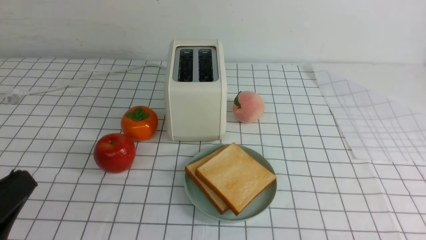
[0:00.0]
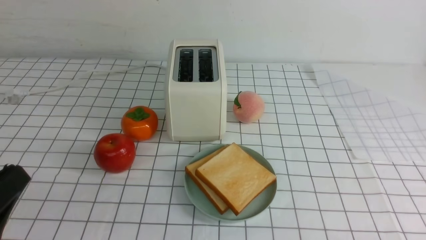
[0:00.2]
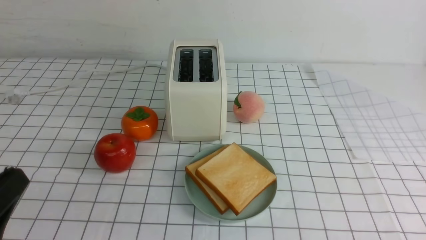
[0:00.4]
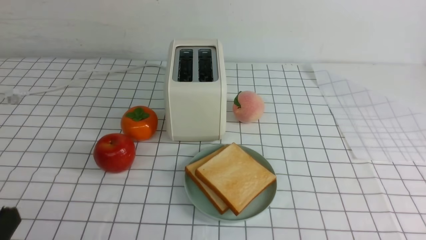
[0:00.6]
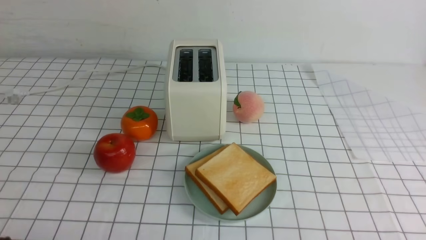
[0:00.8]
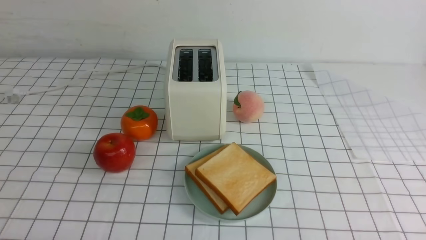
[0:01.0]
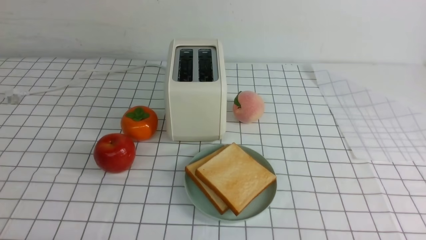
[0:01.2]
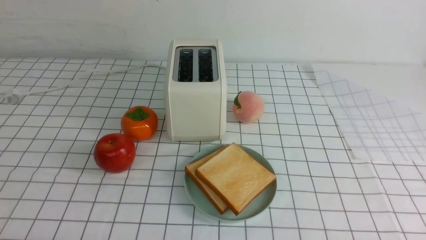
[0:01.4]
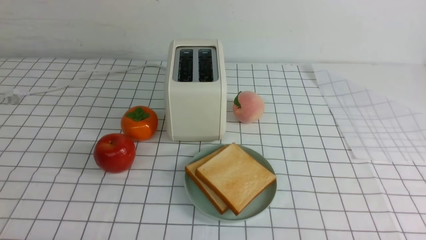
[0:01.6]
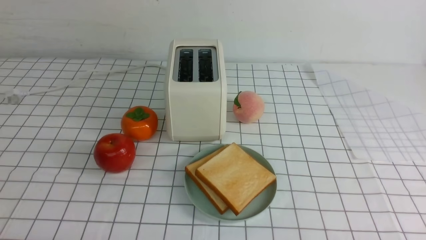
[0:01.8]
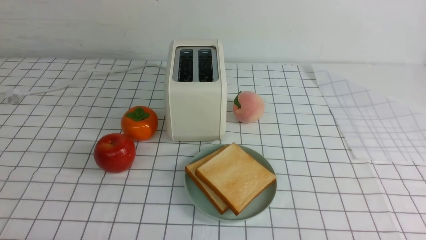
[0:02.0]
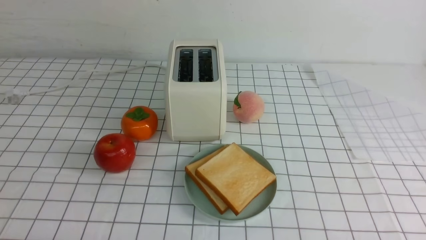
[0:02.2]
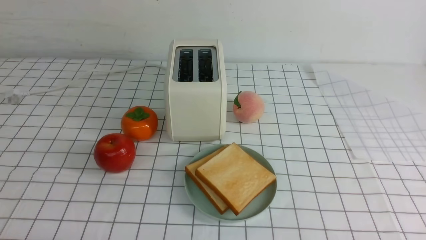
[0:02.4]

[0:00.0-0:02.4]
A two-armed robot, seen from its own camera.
Task of the whole recording: take toasted bread from bread machine on white checkered table place on plate.
0:00.0 to 0:01.2: The left gripper shifts roughly 10 cm downward.
0:01.2 to 0:02.4: Both grippers stay put.
